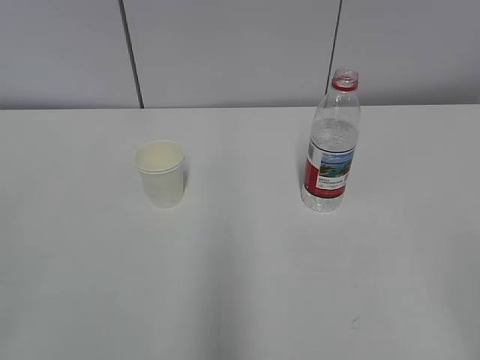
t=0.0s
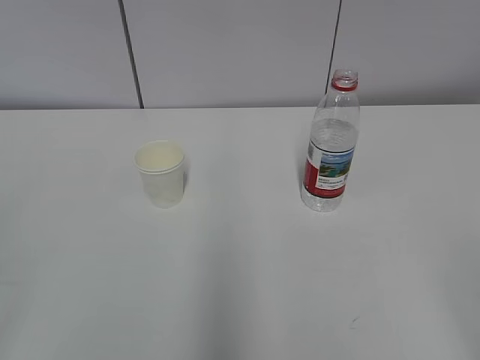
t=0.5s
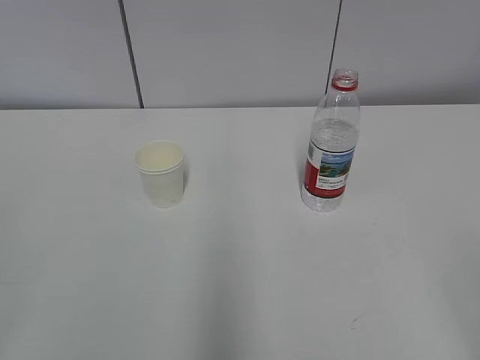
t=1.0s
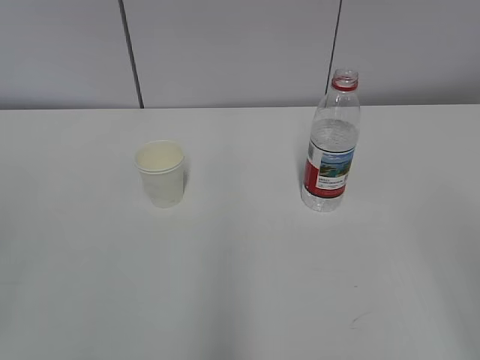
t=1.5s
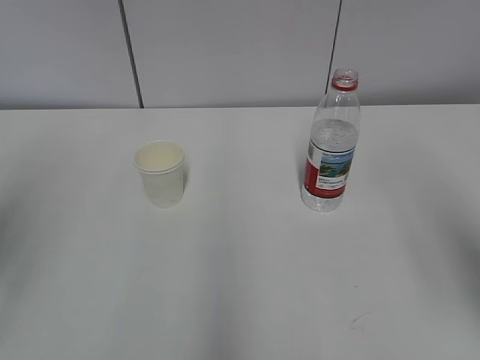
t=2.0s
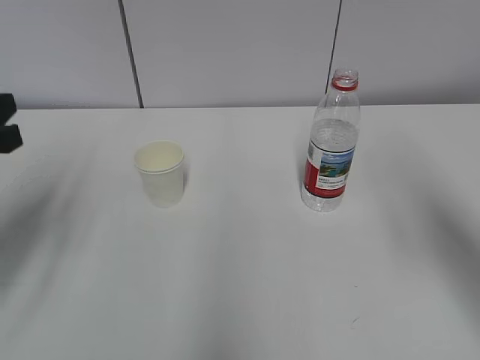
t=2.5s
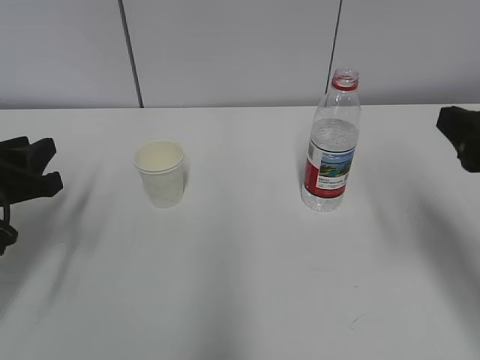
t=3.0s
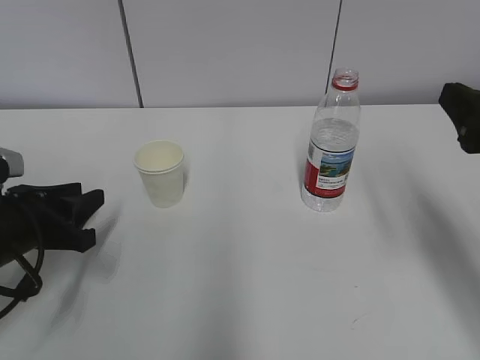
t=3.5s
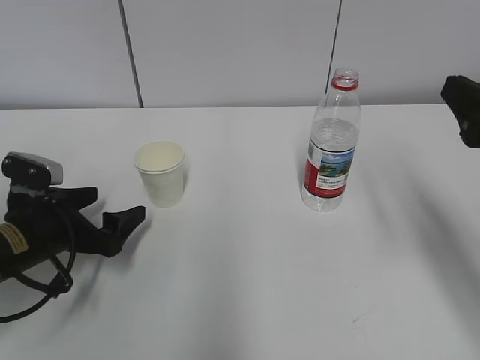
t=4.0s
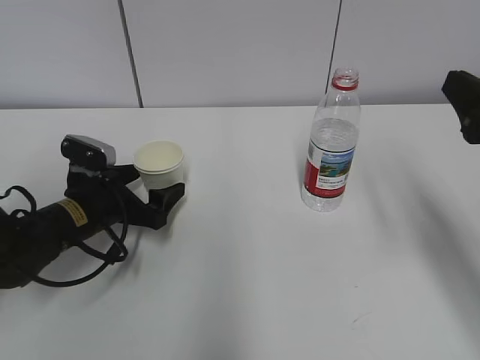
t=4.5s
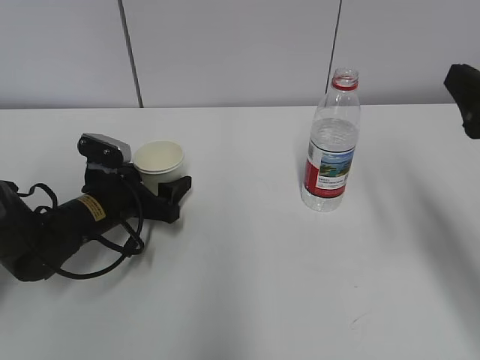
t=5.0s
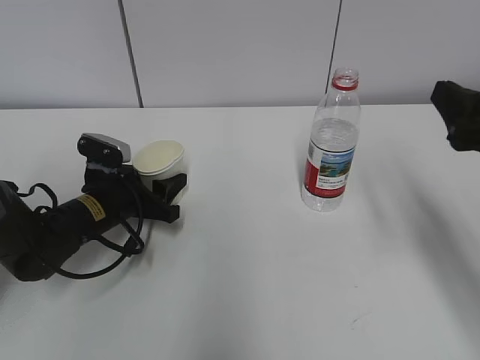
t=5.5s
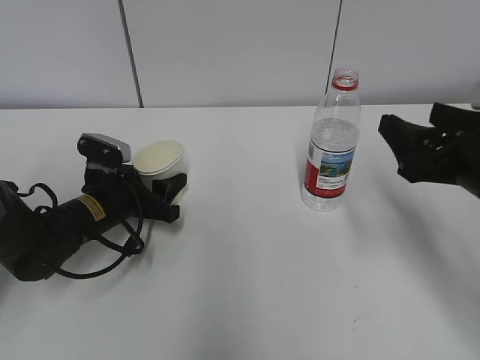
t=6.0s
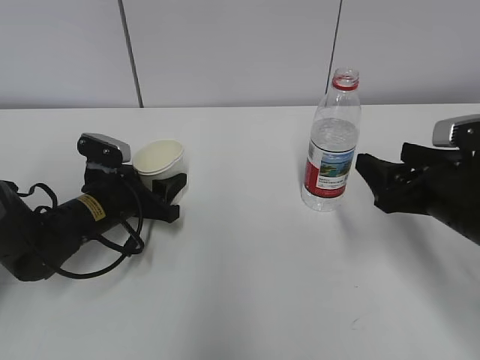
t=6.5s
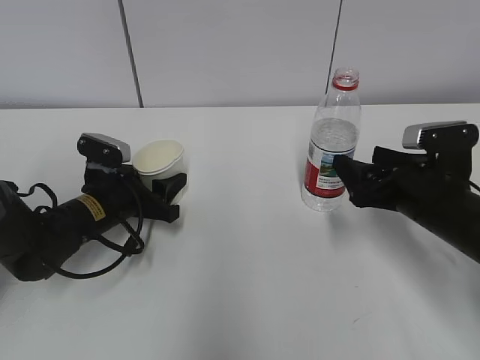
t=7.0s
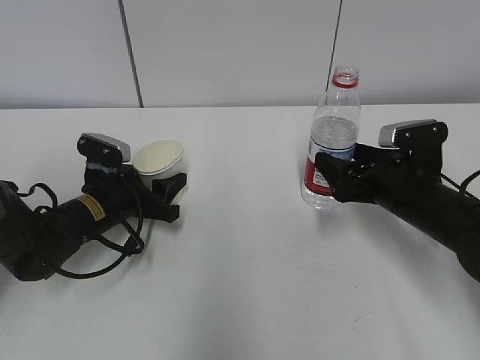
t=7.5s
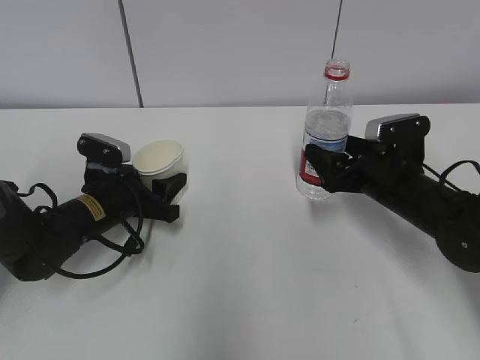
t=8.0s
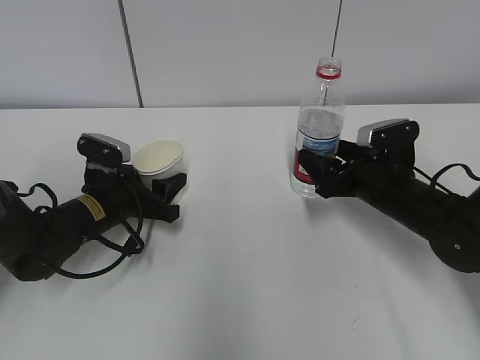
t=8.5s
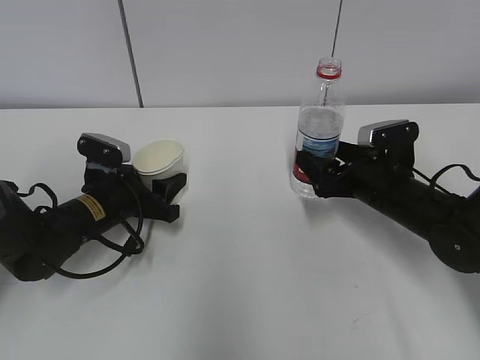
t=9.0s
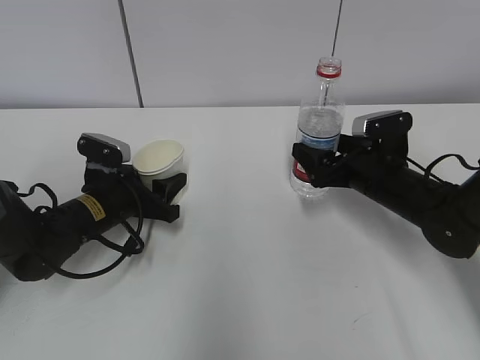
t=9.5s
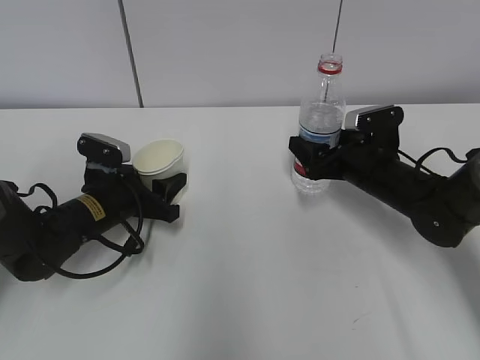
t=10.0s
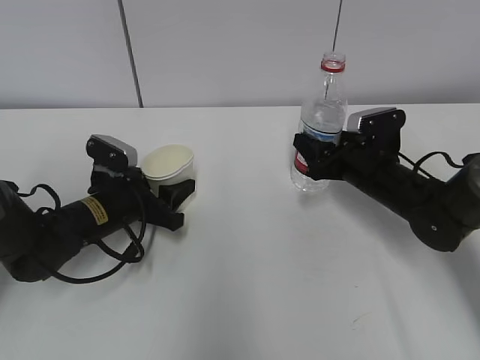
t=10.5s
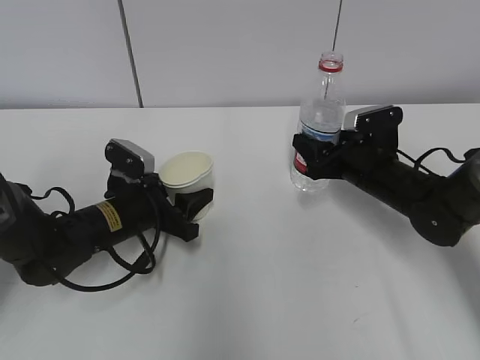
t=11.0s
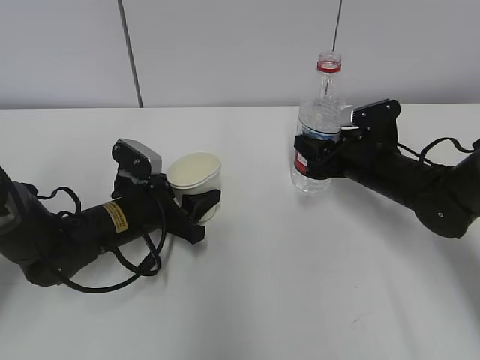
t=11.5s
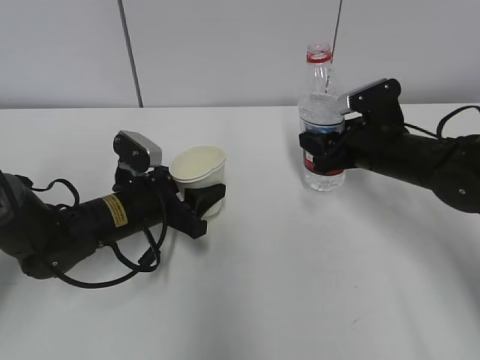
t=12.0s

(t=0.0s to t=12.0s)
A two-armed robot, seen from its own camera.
Step, t=0.0s - t=4.0s: Grab the paper cup with the left hand.
Step, t=4.5s - t=8.5s: Grab the water bottle with the right hand.
t=2.0s - t=4.0s: The right gripper travels forward and downward by roughly 10 cm. The left gripper is displaced downward and forward by about 30 cm, and opens up.
t=4.0s - t=6.0s: The right gripper is displaced downward by about 5 cm. The left gripper goes roughly 10 cm forward and to the right, and closes up.
t=6.0s - t=8.0s: The right gripper is displaced forward and downward by about 15 cm.
t=8.0s - t=10.0s: The grippers make only small movements.
t=10.0s - t=12.0s: The right gripper closes its fingers.

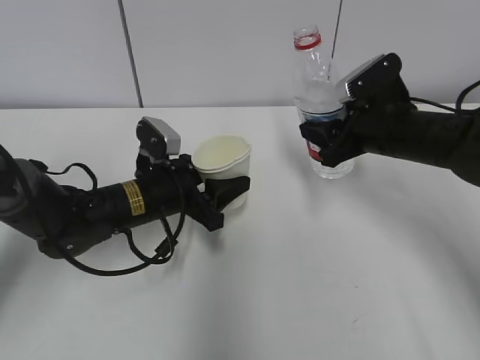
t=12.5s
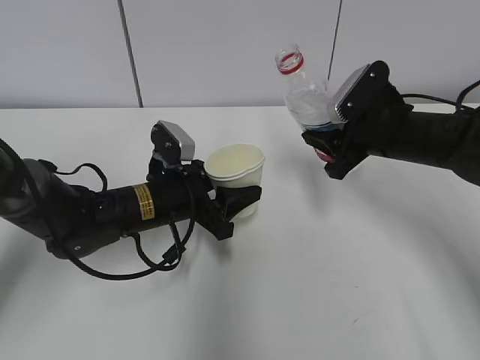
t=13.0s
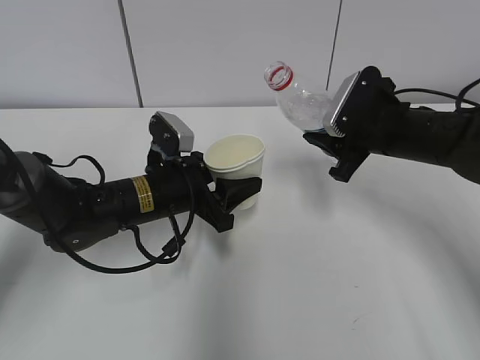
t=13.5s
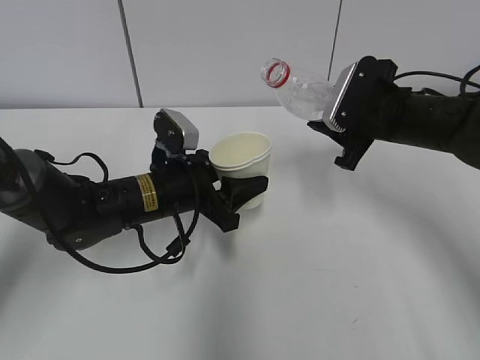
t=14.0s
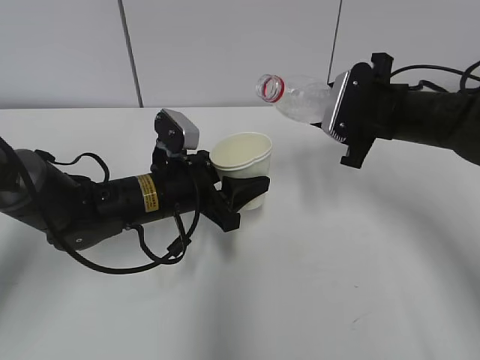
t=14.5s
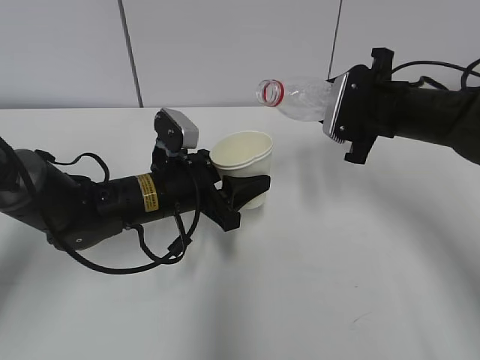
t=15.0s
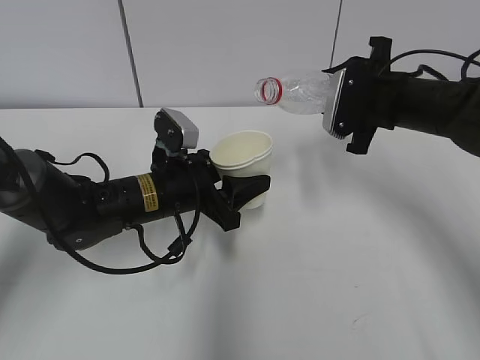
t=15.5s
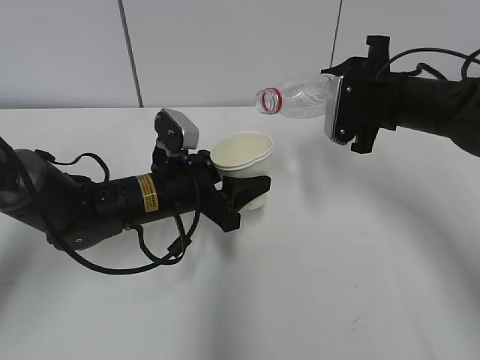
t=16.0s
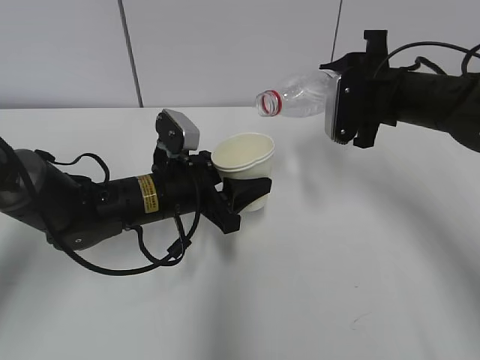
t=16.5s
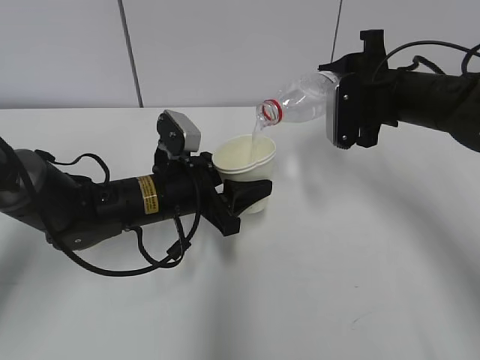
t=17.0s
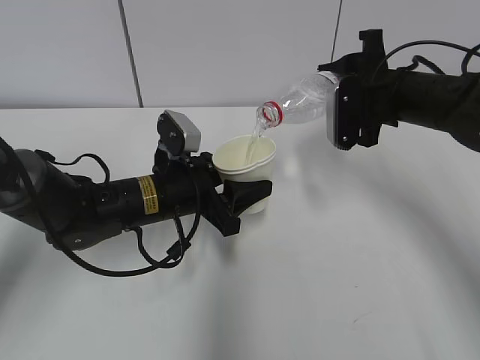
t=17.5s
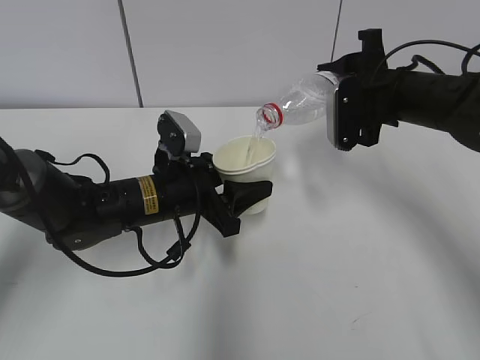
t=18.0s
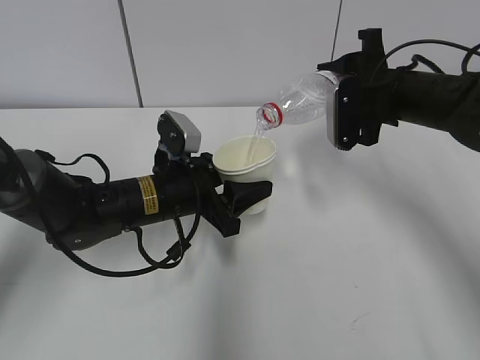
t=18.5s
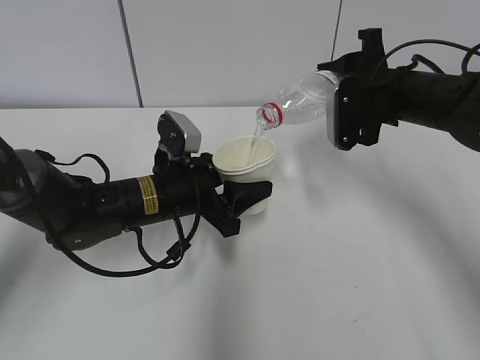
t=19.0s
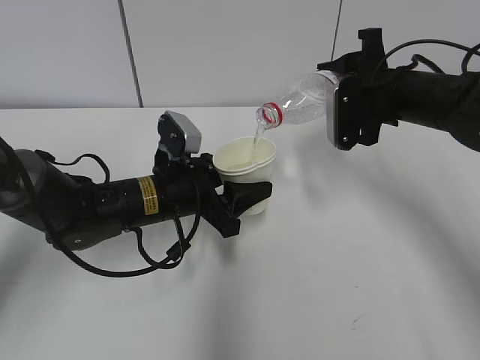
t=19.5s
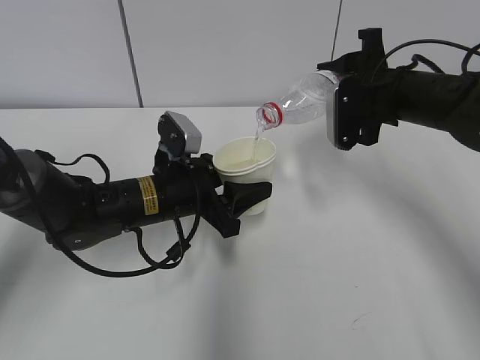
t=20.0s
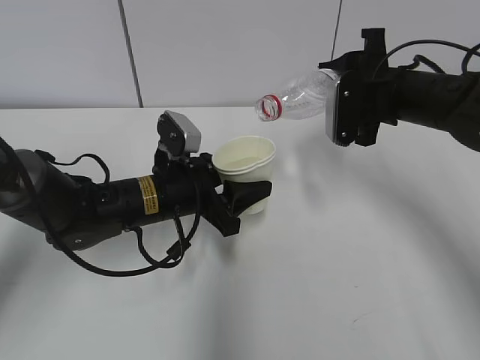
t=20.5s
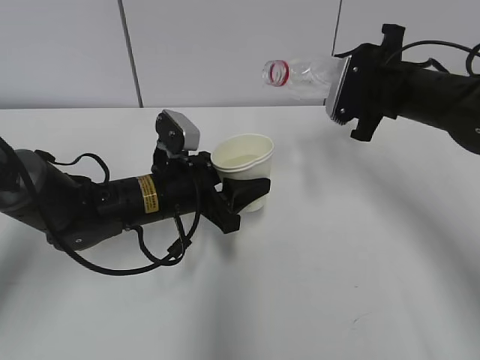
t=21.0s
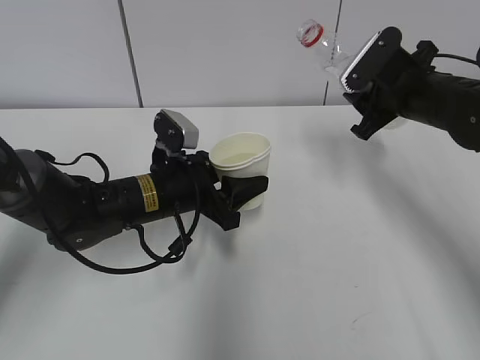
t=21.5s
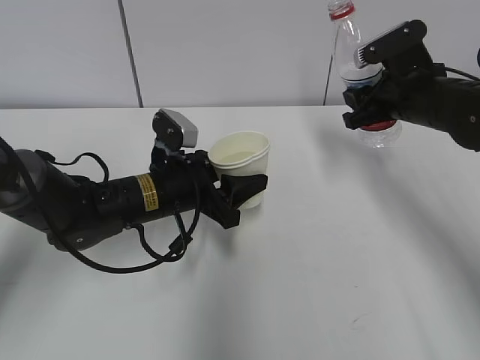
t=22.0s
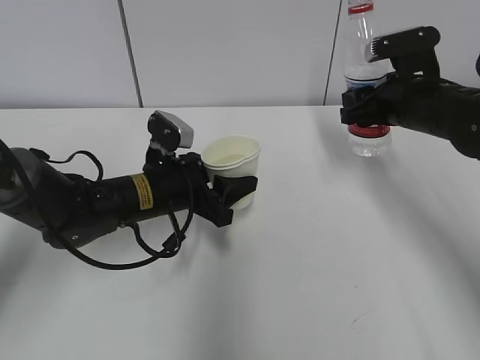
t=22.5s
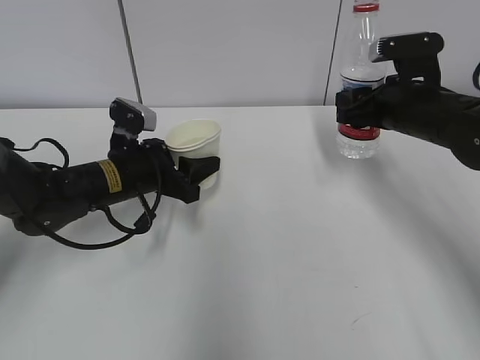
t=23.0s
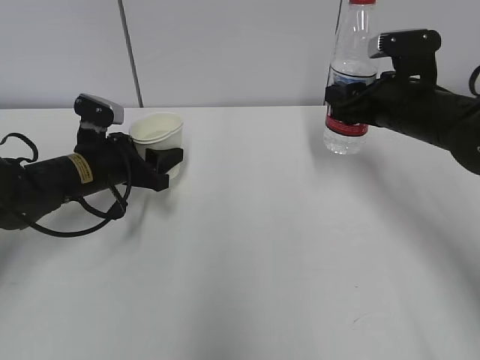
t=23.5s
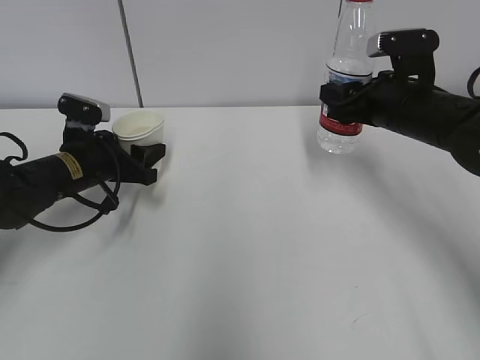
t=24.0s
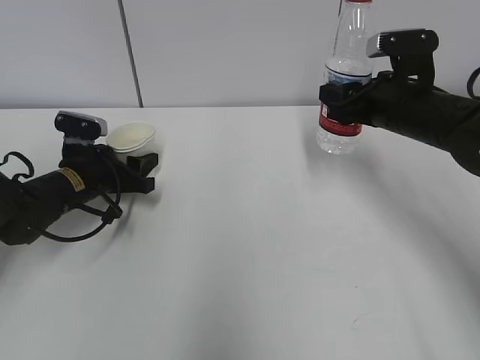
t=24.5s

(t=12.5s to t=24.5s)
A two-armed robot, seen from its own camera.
Step, t=14.0s - t=17.0s: Fill water with the left hand.
Step, t=14.0s - t=17.0s: Pour water with the right hand.
Step, t=19.0s - t=21.0s: Place the paper cup with the left hand.
Step, t=21.5s - t=24.0s: Place the water bottle with the right hand.
t=16.5s - t=18.5s: The grippers stay close to where they were, moving slightly.
t=18.5s - t=20.5s: Neither gripper changes place.
t=22.5s - t=24.5s: The left gripper shifts some 15 cm to the left and forward.

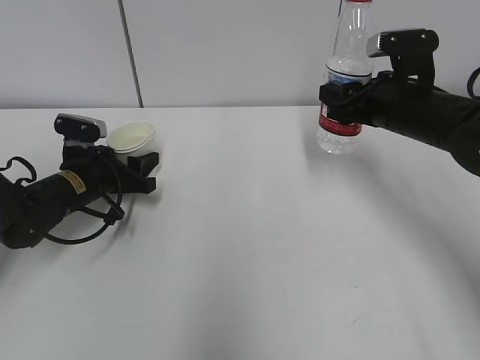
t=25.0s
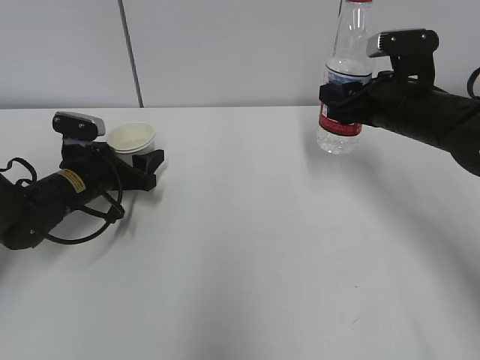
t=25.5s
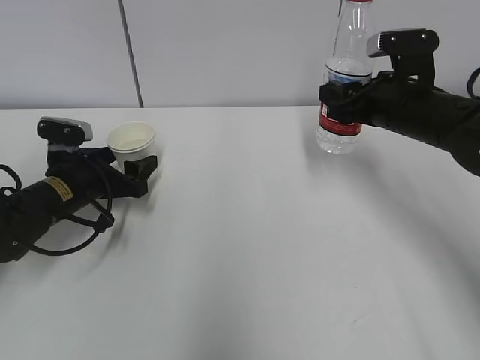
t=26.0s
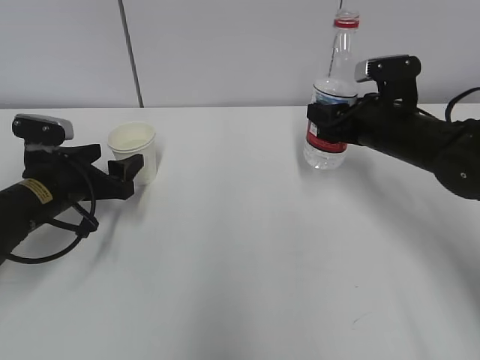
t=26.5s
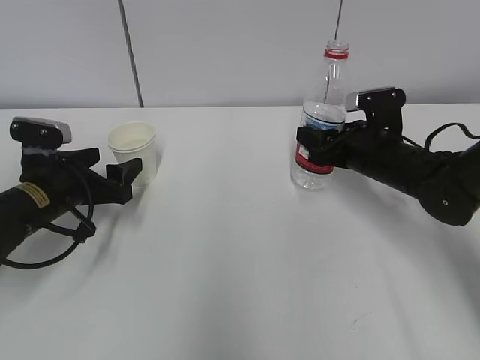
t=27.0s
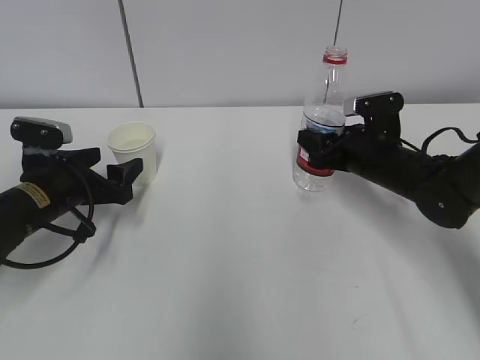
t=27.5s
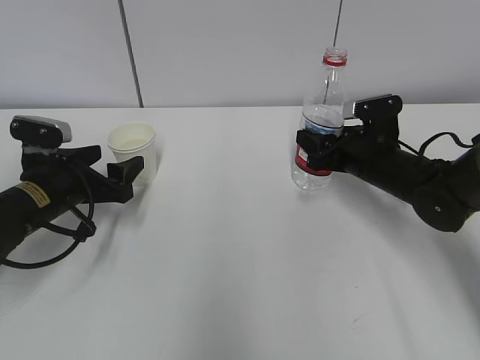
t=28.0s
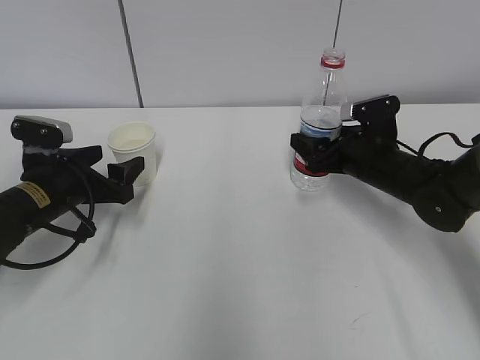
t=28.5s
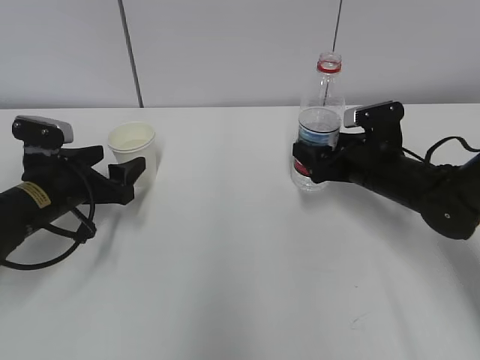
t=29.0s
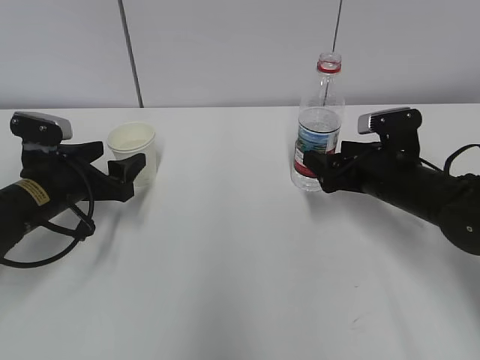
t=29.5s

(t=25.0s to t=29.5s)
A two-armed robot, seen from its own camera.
t=25.0s - t=27.0s: The right gripper goes approximately 10 cm downward; the left gripper shifts approximately 5 cm backward, and opens.
t=27.0s - t=29.5s: The right gripper opens its fingers.
